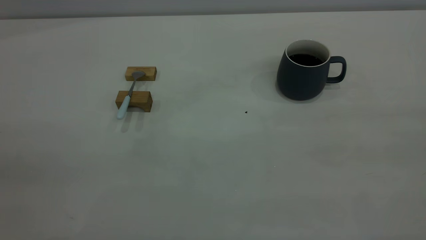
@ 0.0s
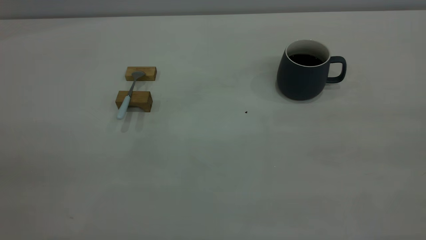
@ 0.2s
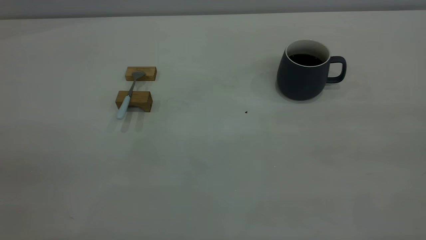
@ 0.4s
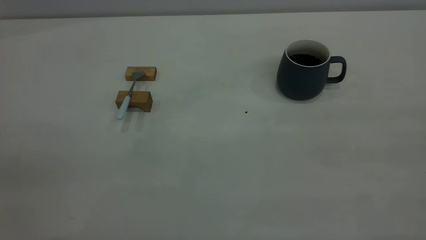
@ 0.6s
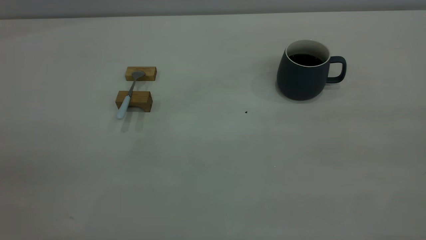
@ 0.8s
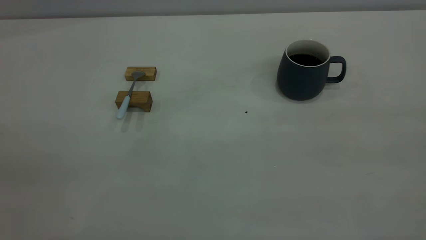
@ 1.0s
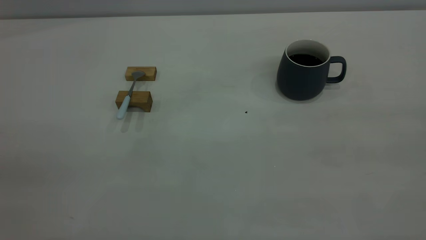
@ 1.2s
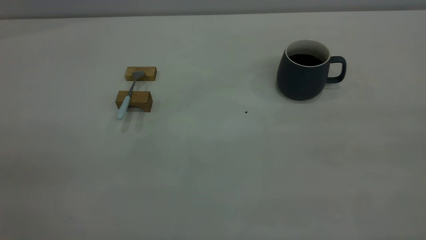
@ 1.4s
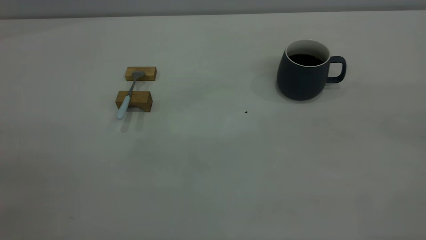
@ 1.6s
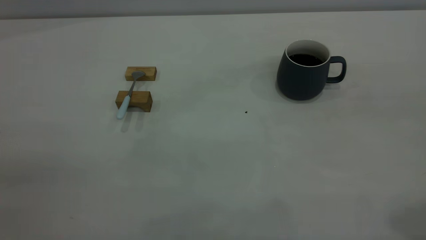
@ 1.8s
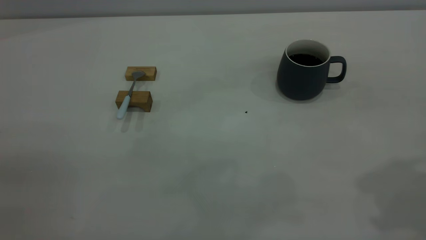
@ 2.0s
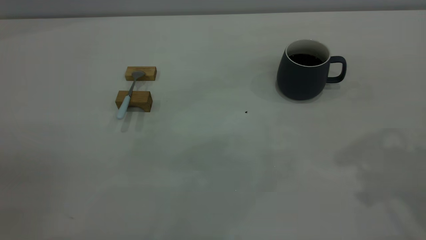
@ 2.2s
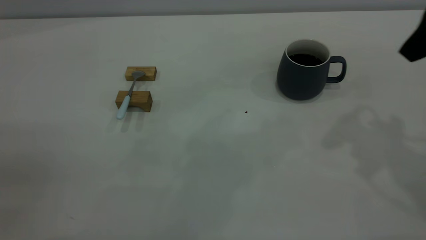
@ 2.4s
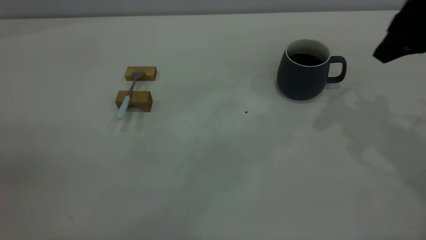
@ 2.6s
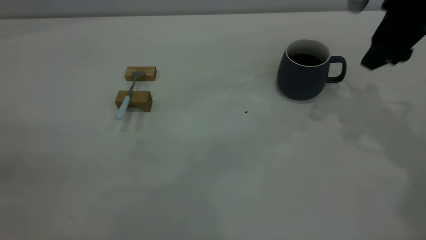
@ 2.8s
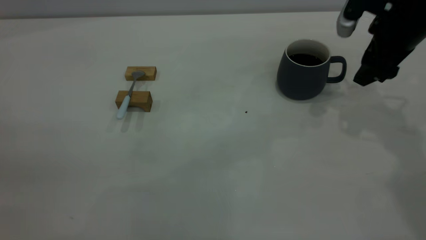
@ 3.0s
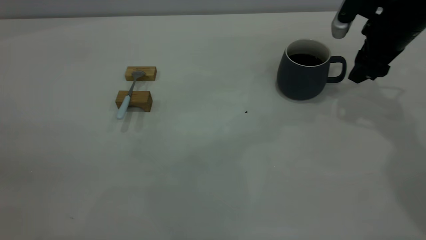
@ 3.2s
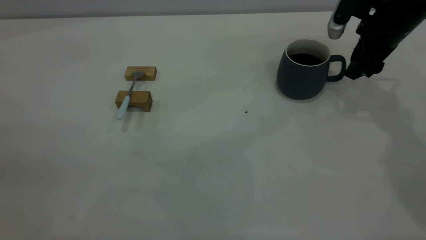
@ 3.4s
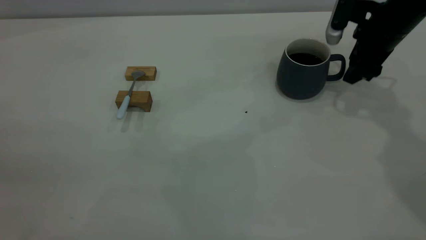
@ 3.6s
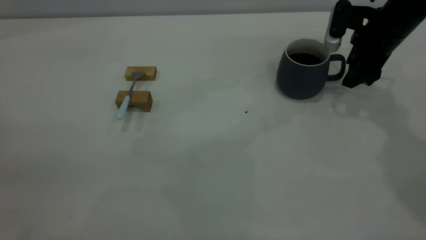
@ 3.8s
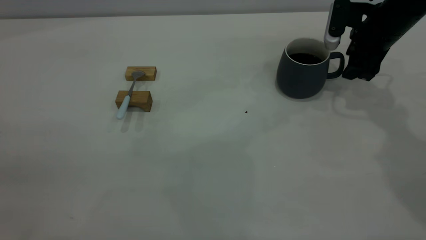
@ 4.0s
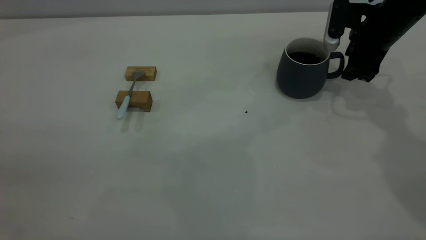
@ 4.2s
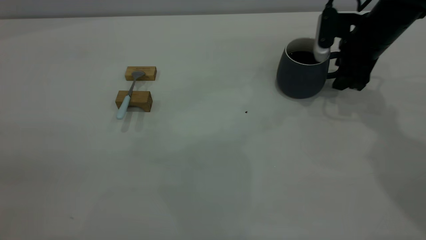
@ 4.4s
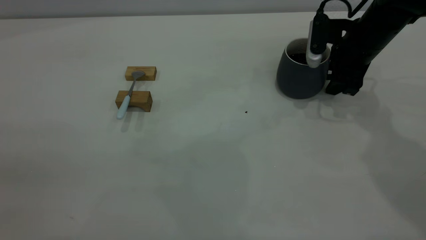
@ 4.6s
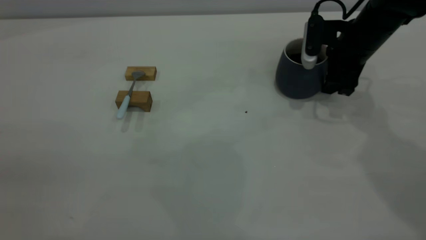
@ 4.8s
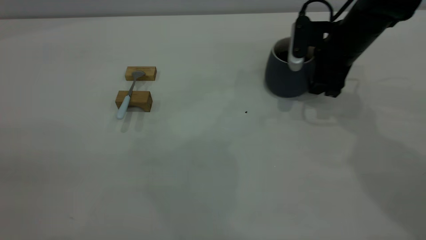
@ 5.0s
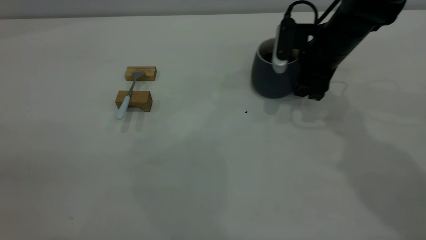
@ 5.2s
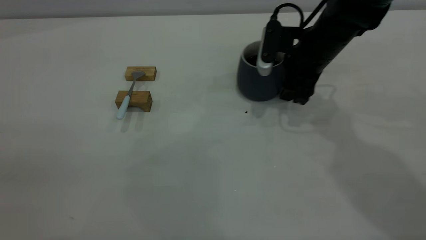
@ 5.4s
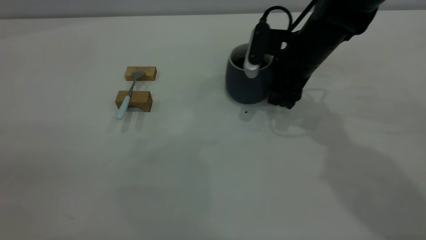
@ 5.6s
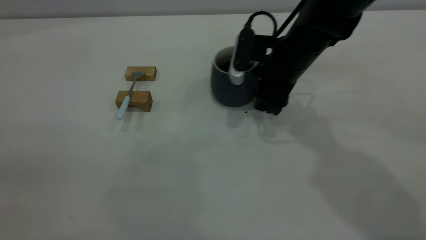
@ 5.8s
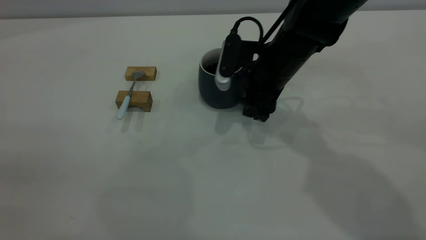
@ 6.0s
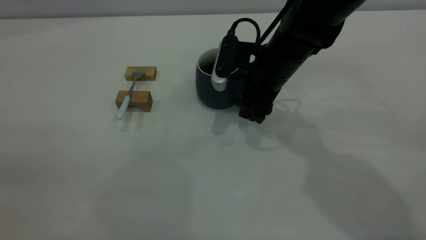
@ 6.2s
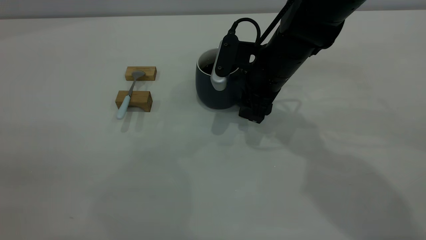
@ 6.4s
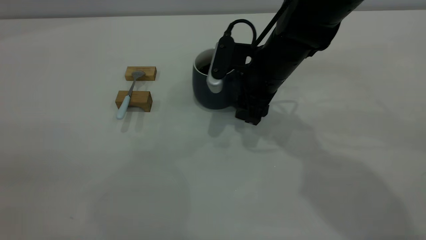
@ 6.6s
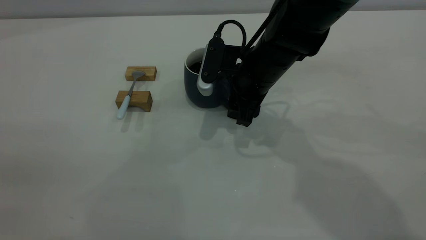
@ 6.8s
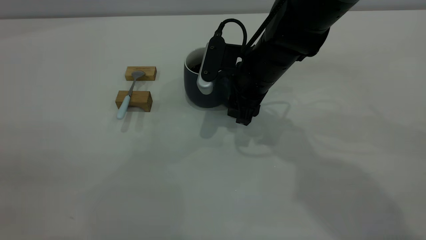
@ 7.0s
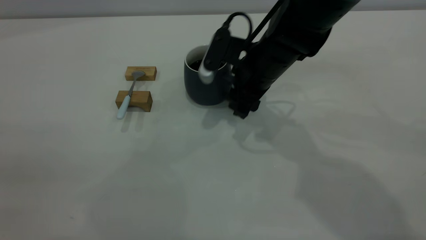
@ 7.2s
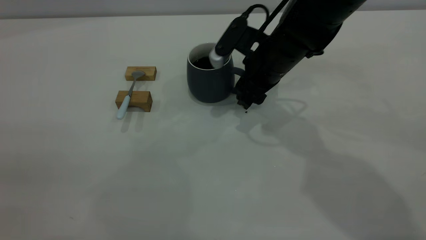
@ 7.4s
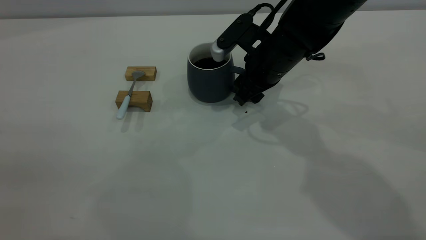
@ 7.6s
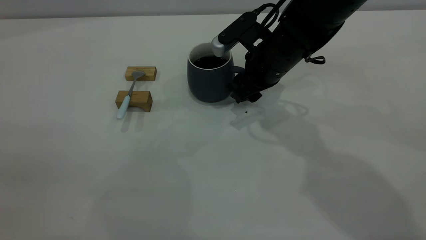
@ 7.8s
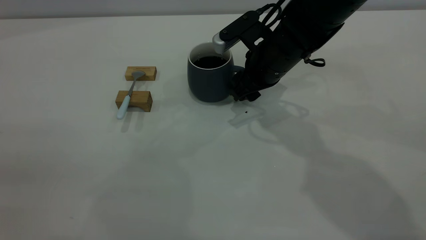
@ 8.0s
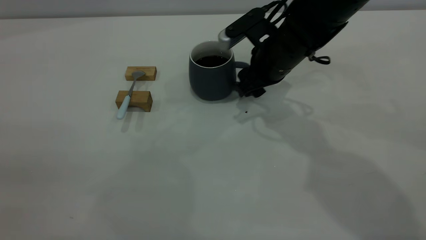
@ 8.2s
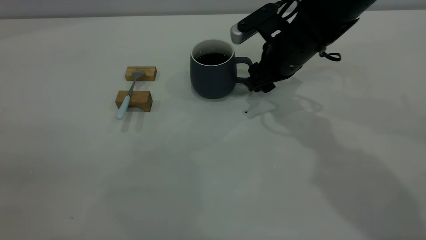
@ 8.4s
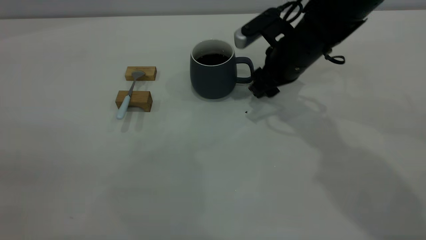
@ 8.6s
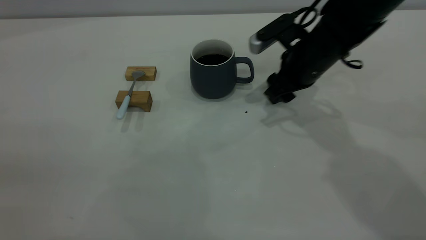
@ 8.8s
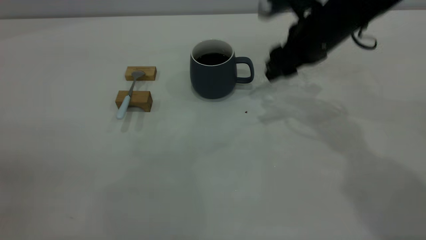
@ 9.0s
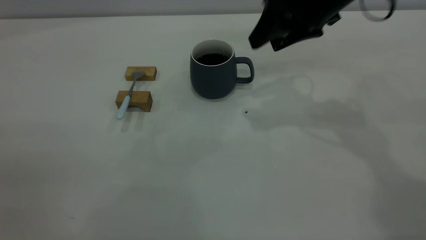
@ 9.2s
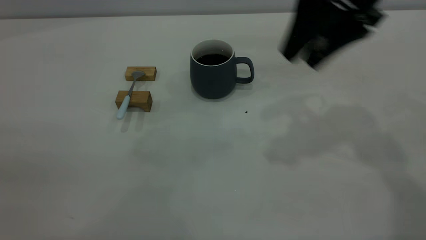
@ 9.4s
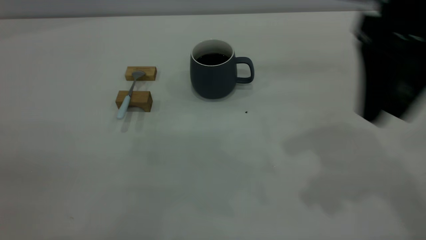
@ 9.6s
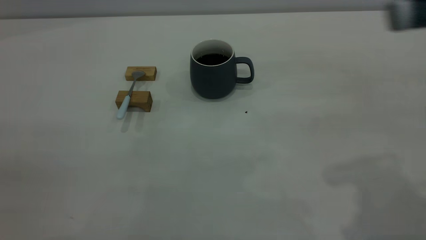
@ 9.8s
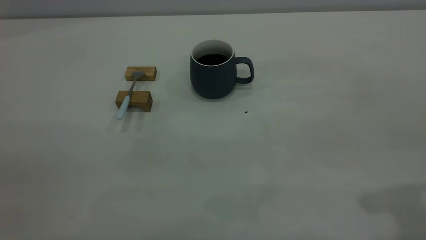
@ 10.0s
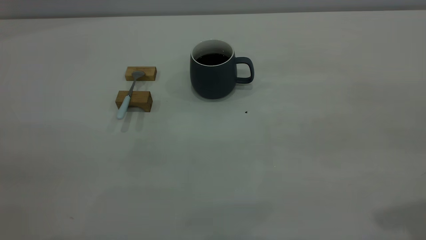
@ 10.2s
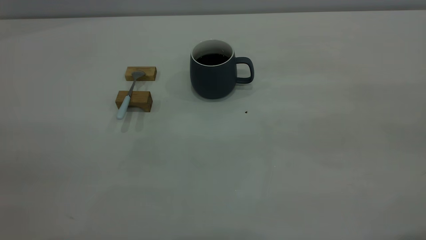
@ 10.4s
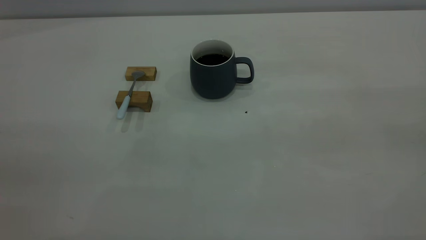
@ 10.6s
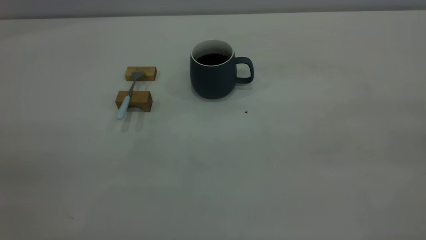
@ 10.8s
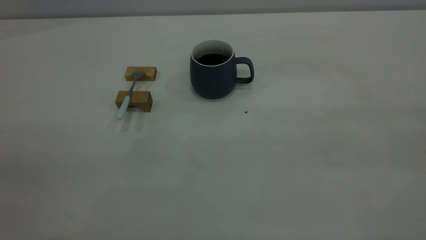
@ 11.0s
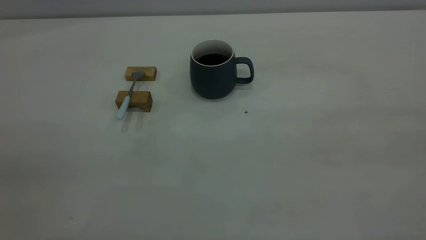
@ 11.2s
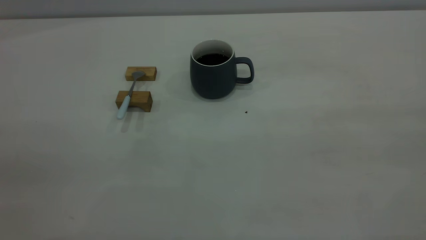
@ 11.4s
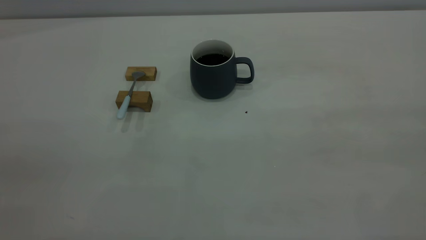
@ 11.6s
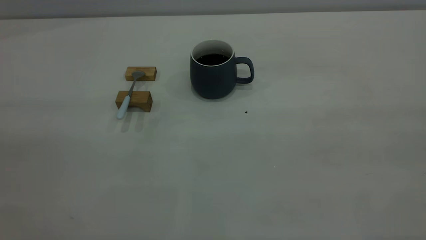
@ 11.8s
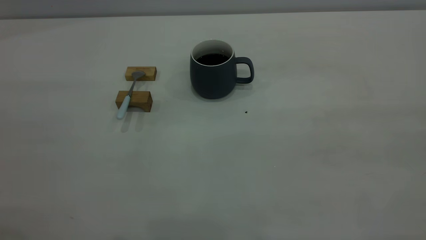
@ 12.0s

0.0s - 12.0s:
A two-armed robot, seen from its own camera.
Step, 0.0s - 8.8s: Move the cup with coffee to the center of view.
1.6s - 3.0s: The right gripper shifts some 40 cm forward and downward, and opens its fingers.
3.0s - 4.4s: The right gripper goes roughly 5 cm downward.
4.4s - 6.0s: The right gripper travels to the left by about 15 cm.
7.6s - 9.0s: The right gripper heads to the right and upward, covering roughly 10 cm.
9.0s - 10.4s: The right gripper goes approximately 35 cm backward and upward.

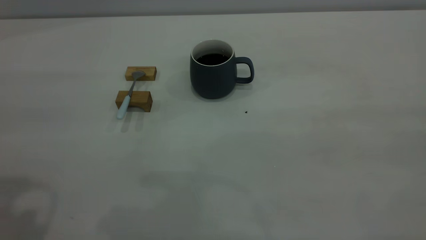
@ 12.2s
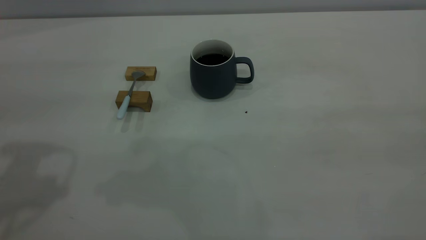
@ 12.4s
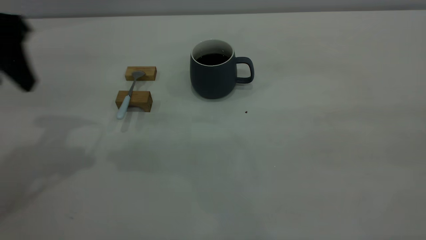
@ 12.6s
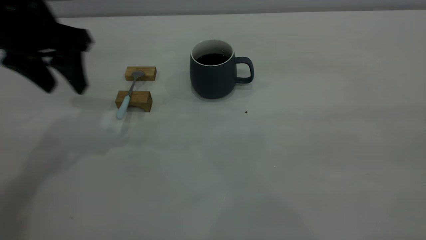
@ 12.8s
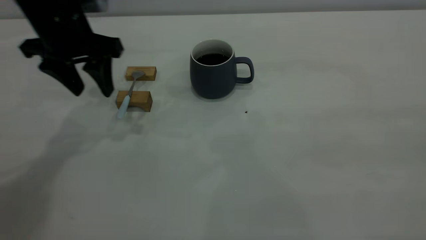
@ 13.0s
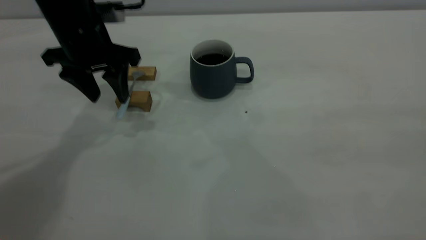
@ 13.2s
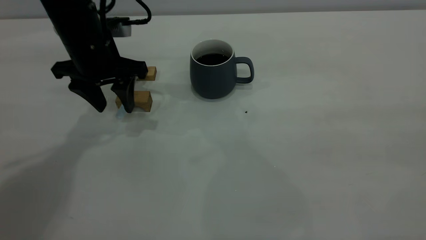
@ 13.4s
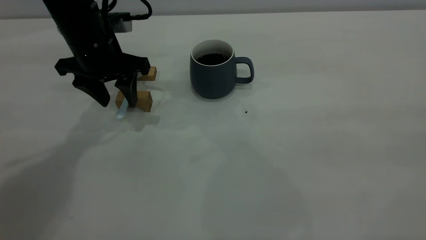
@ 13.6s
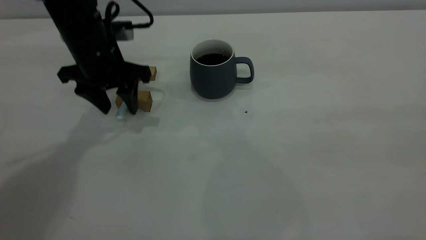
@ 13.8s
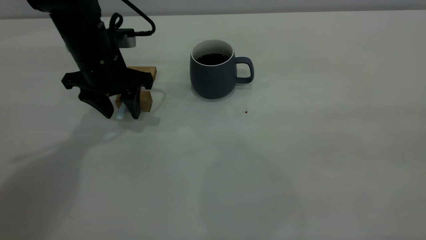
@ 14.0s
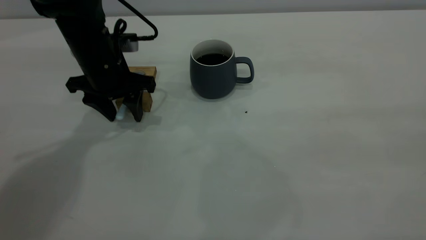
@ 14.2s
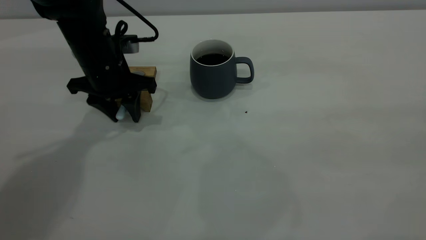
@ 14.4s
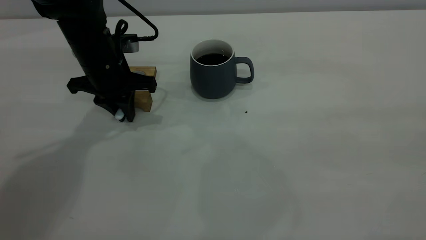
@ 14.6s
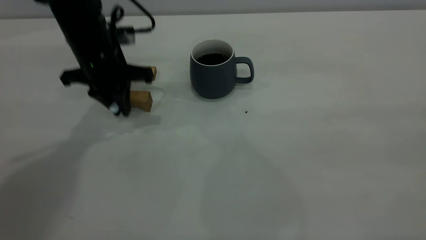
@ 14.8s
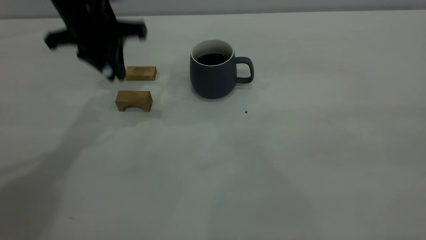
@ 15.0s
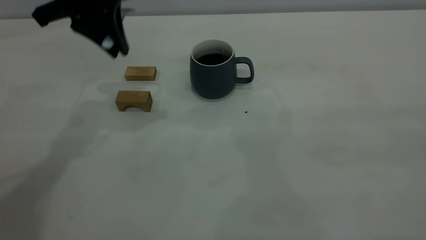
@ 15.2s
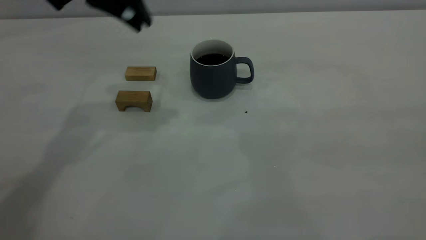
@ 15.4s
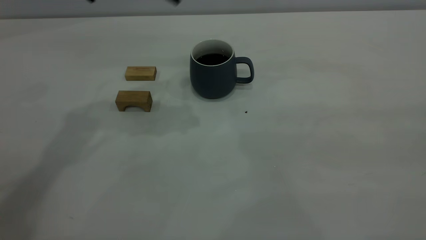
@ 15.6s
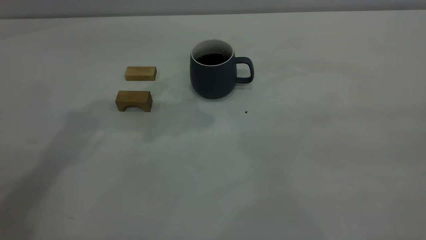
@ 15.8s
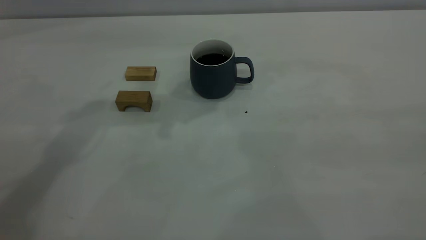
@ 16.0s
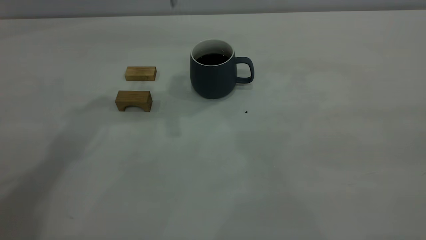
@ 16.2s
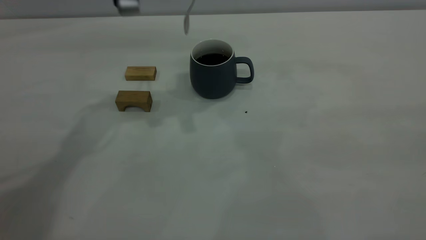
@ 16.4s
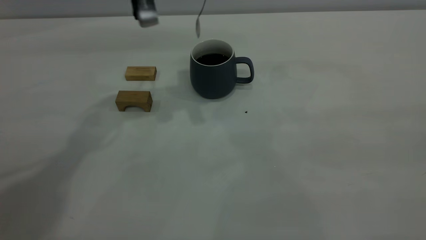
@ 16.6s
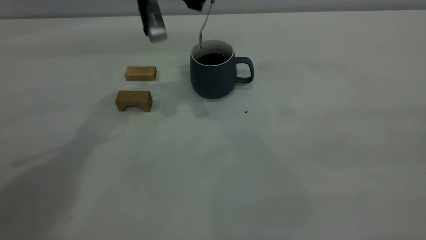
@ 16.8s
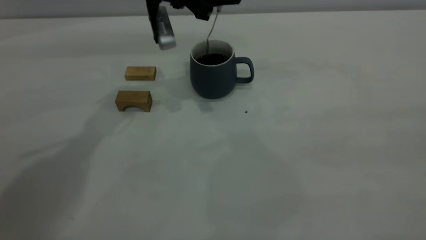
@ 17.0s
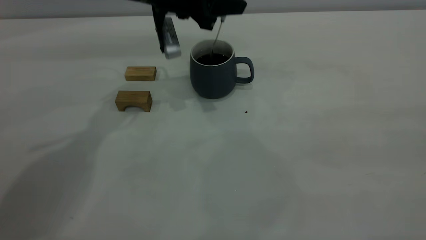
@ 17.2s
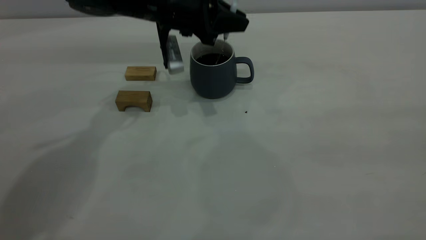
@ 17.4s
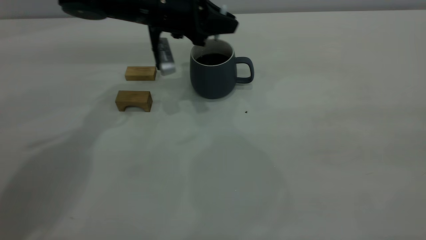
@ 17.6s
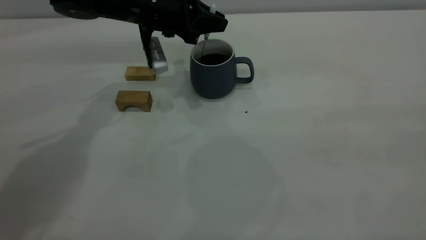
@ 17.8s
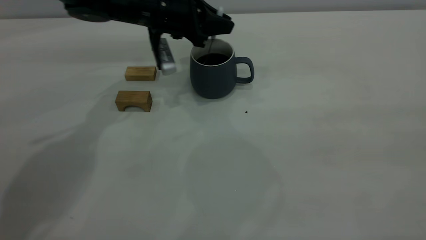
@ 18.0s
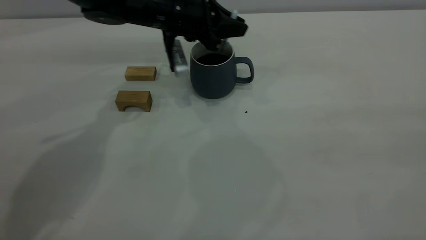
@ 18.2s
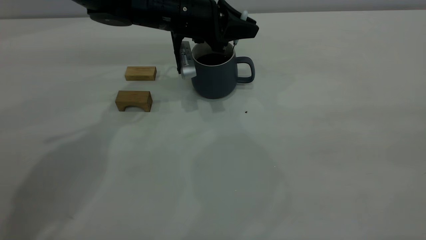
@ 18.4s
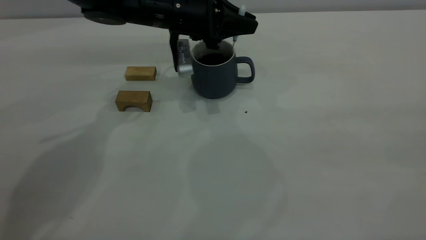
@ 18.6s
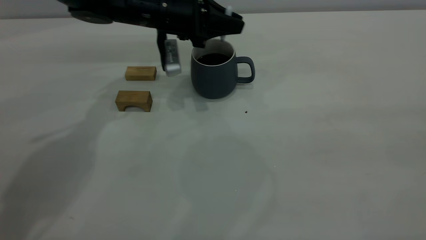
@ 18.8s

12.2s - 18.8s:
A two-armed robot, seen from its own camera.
Step, 12.2s - 14.8s: Pick up the spoon.
12.2s - 13.8s: The left gripper heads forward, downward and to the right, covering about 30 cm.
13.8s - 15.4s: The left gripper travels upward by approximately 15 cm, and closes its fingers.
15.4s - 17.2s: The left gripper is displaced downward, forward and to the right by approximately 15 cm.
17.2s - 18.8s: The grippers stay close to where they were, moving slightly.
